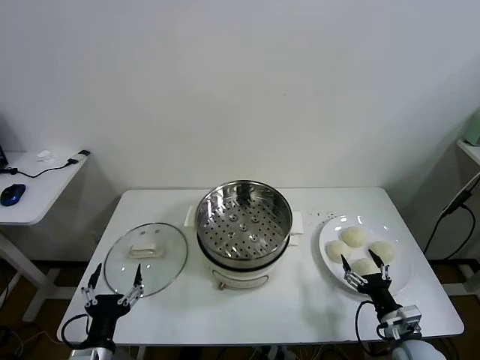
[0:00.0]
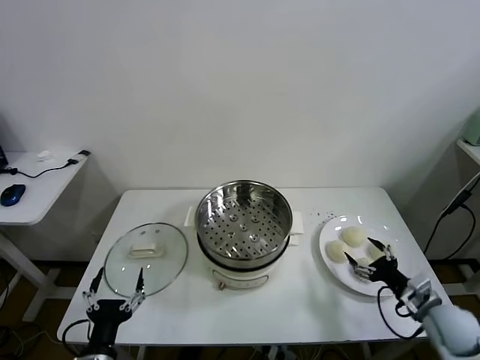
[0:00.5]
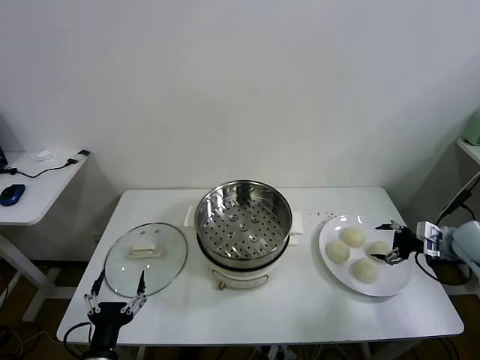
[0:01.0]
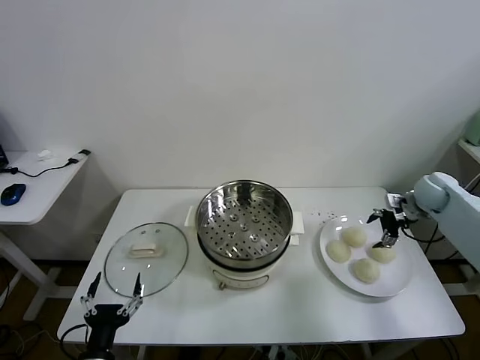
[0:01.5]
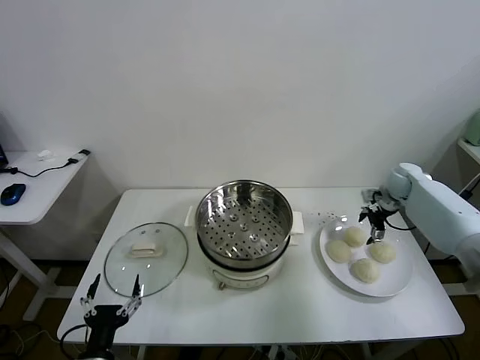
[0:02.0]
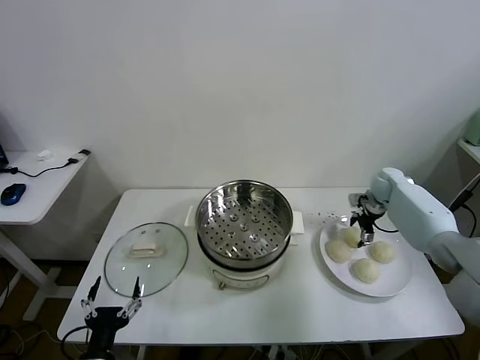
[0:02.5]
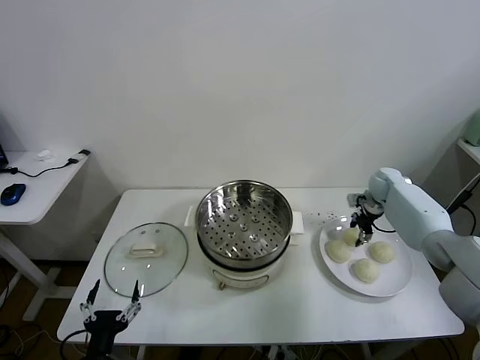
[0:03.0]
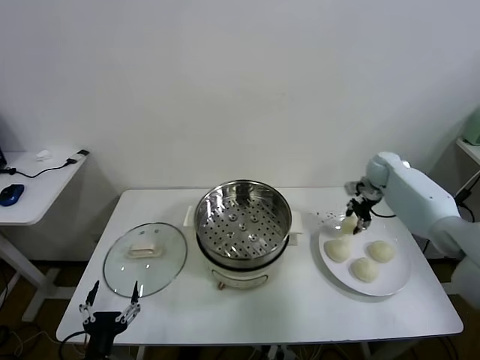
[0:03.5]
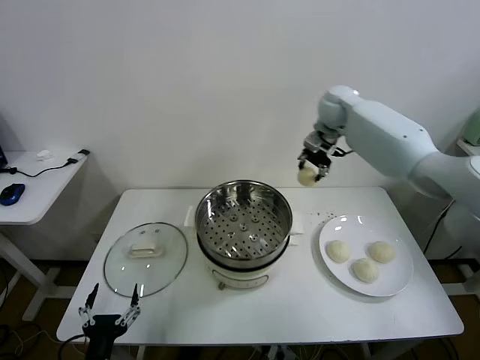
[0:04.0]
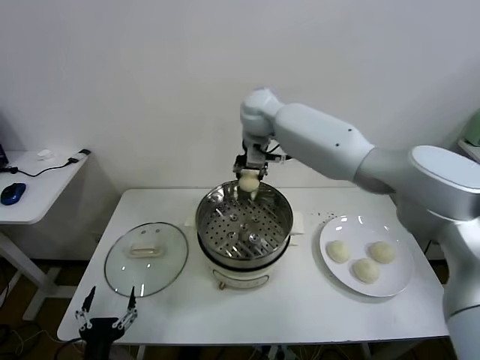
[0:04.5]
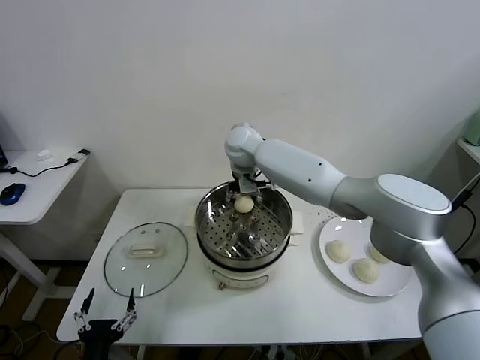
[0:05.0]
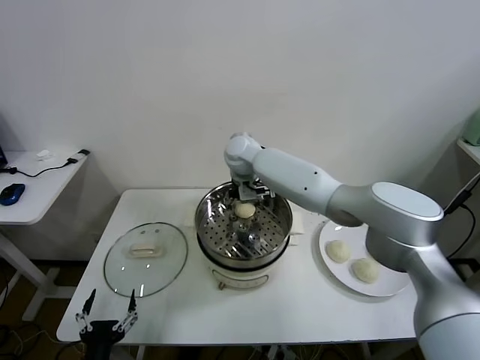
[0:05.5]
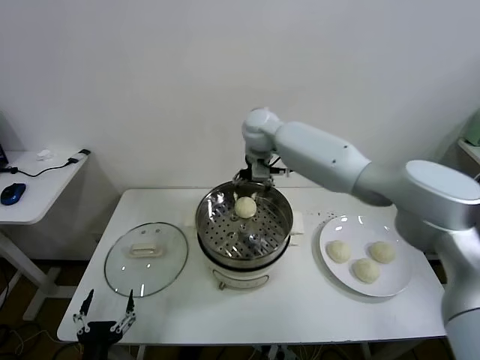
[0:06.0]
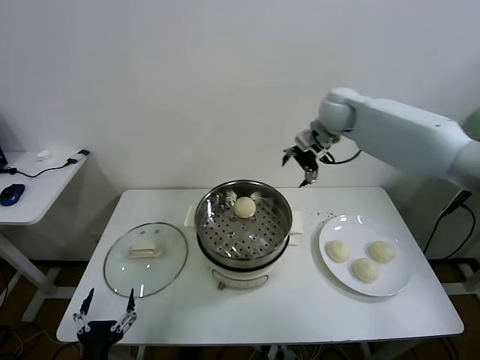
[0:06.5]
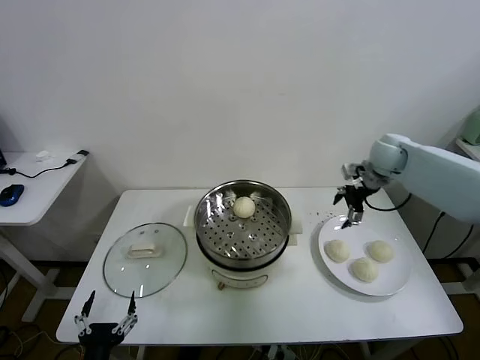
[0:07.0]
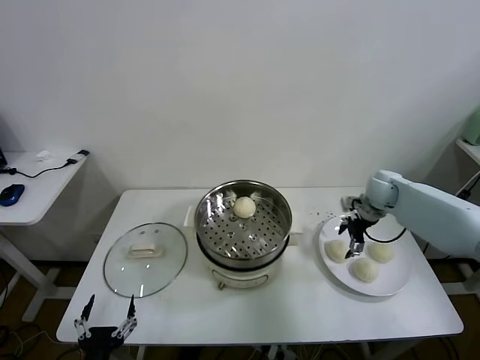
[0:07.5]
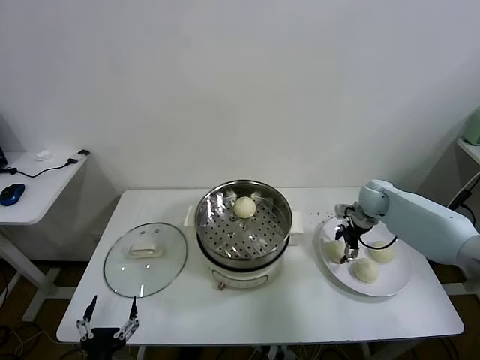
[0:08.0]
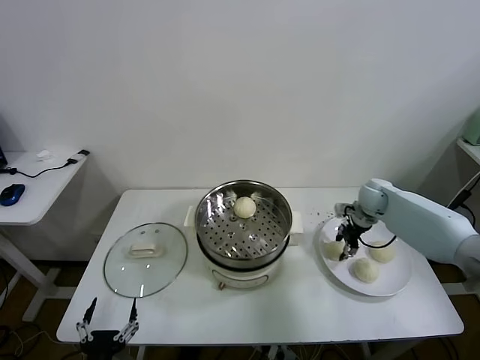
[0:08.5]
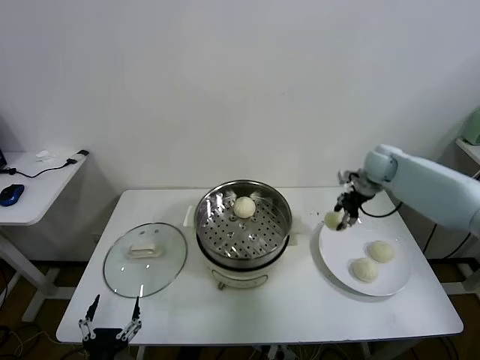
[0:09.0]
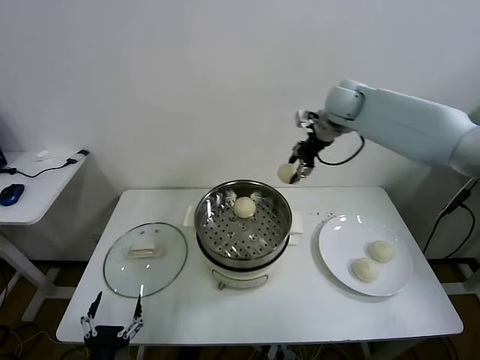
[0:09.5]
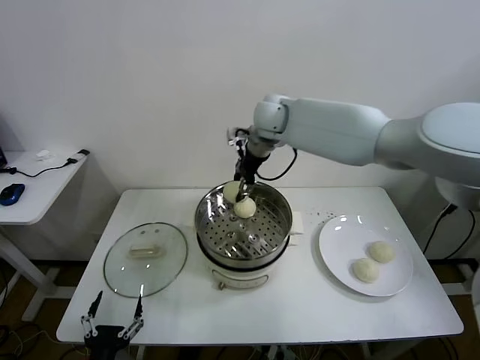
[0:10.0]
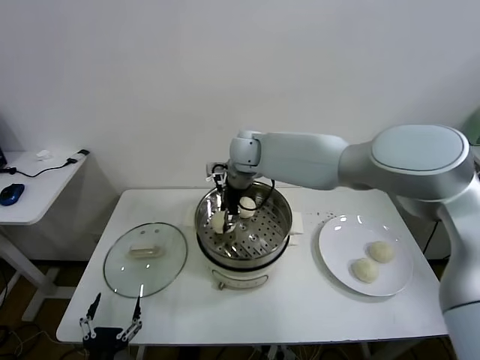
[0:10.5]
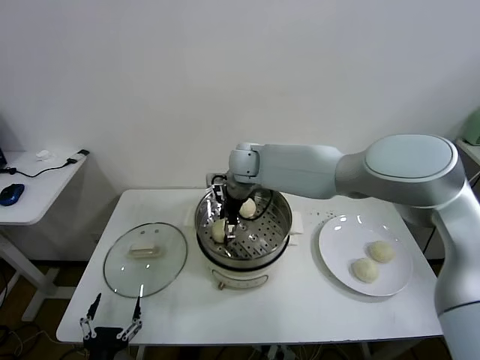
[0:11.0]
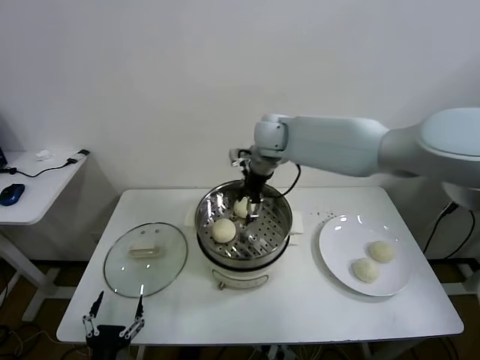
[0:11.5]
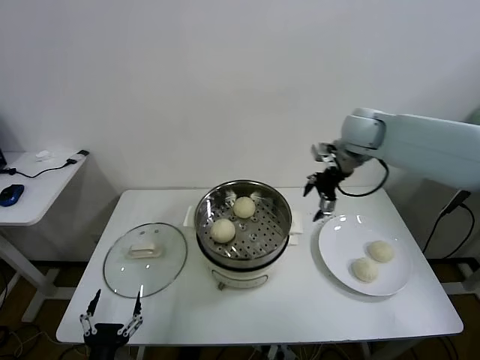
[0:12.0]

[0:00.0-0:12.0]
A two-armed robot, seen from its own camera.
Task of the whole recording: take steamed baozi put them in steamer.
Step, 0:00.0 to 0:03.0: Grasp the baozi in the plate with right gripper.
Step, 0:03.5 to 0:05.5: Place the baozi on the steamer with right gripper.
Step, 0:06.0 to 0:08.0: Grasp the baozi in the plate with right gripper.
Step, 0:08.5 to 0:11.0: Place the baozi on the steamer with right gripper.
0:02.0 to 0:04.0: The right gripper shifts roughly 35 cm to the left and upward, and closes its fingers.
0:04.0 to 0:06.0: The right gripper shifts approximately 10 cm to the left, and opens up.
0:06.0 to 0:08.0: The right gripper is displaced to the right and downward by about 35 cm.
0:08.0 to 0:10.0: The right gripper travels to the left and upward by approximately 40 cm, and closes.
0:10.0 to 0:12.0: The right gripper heads to the right, covering about 25 cm, and opens its fingers.

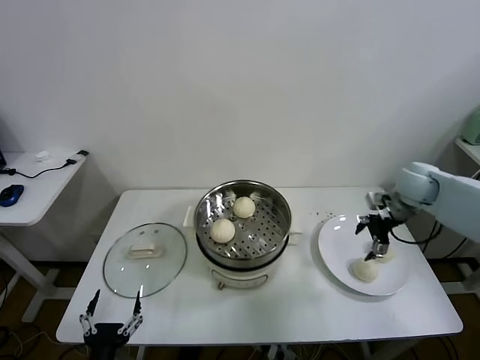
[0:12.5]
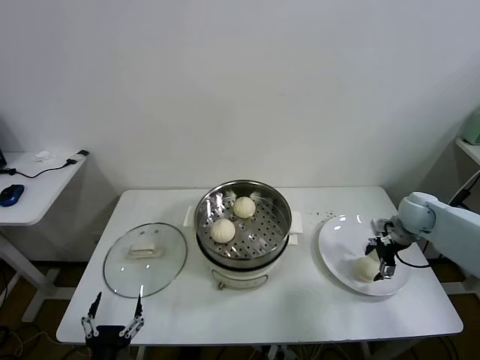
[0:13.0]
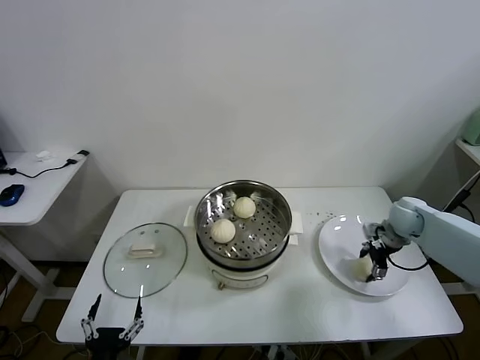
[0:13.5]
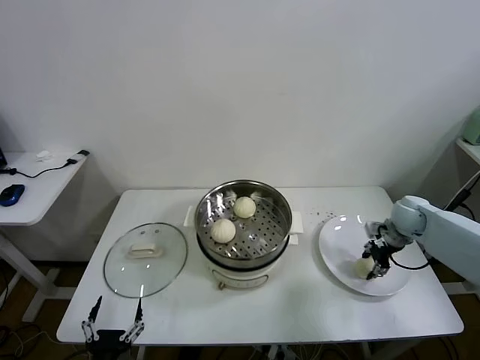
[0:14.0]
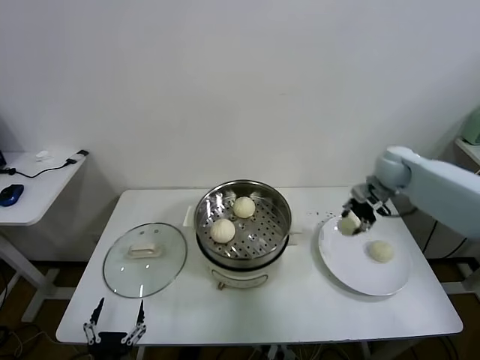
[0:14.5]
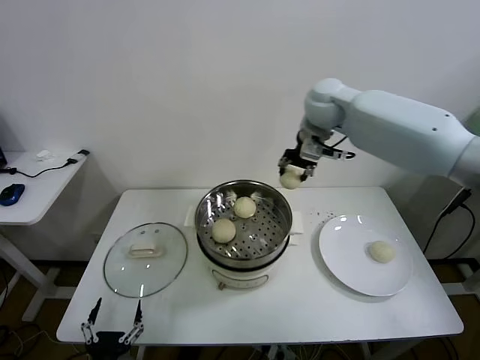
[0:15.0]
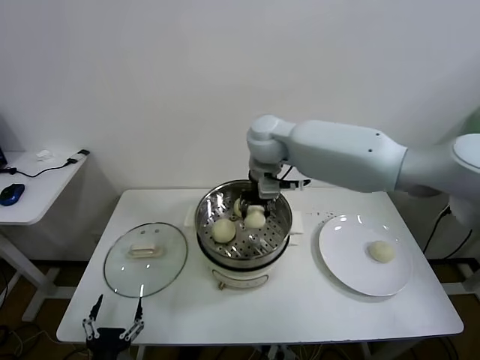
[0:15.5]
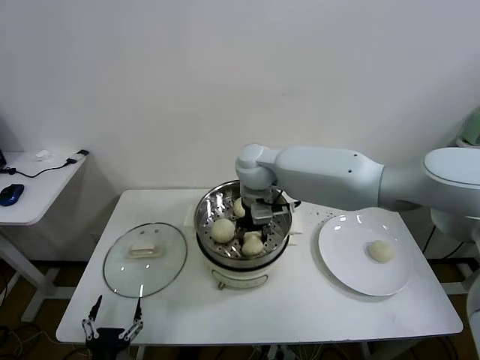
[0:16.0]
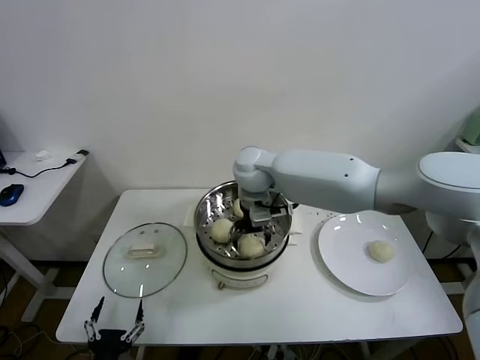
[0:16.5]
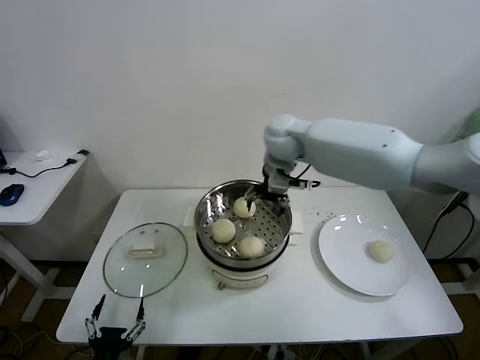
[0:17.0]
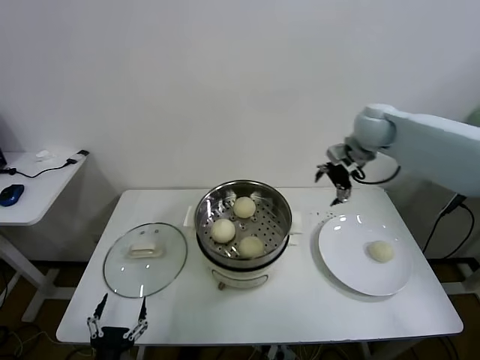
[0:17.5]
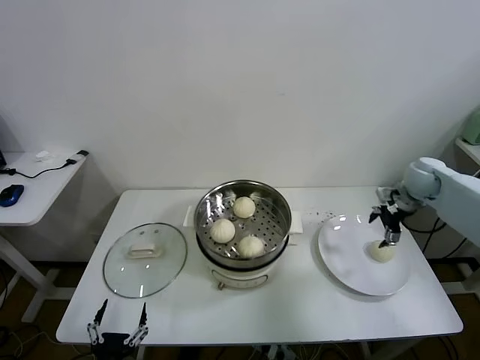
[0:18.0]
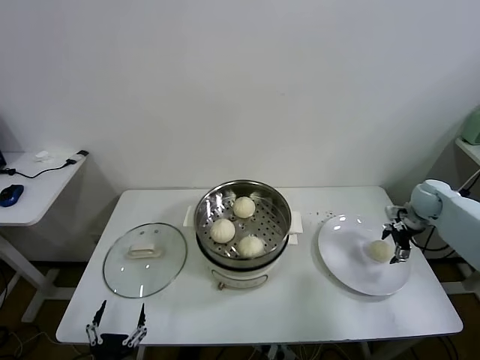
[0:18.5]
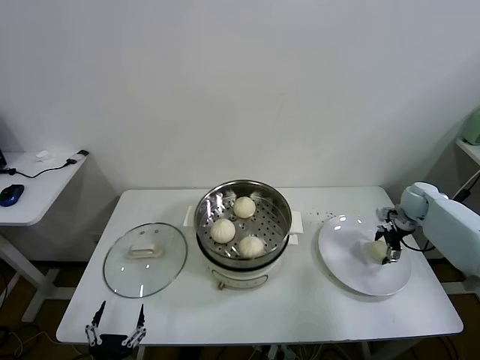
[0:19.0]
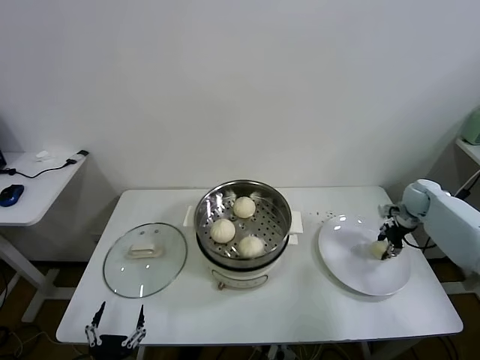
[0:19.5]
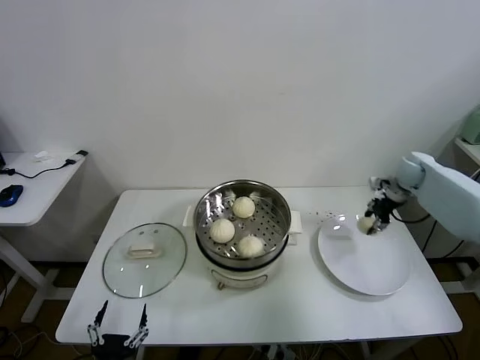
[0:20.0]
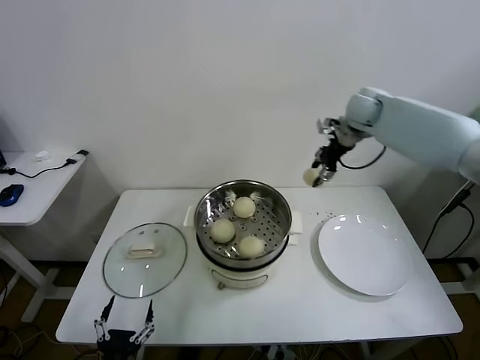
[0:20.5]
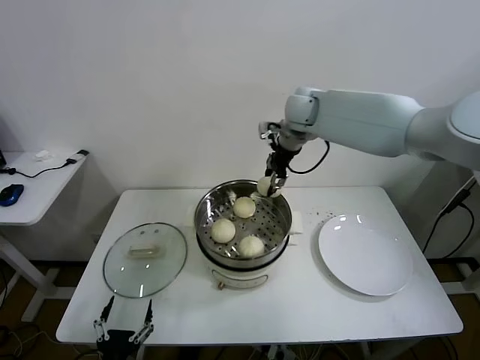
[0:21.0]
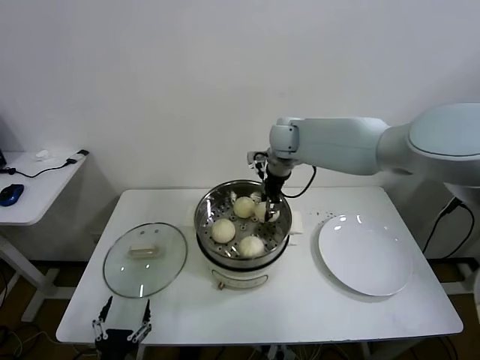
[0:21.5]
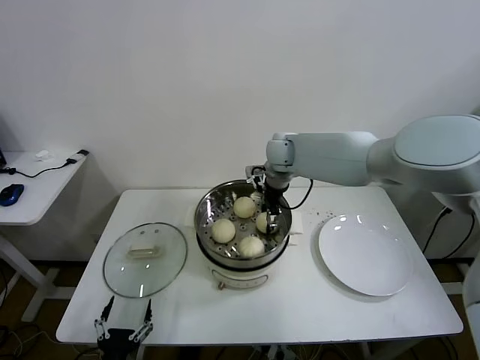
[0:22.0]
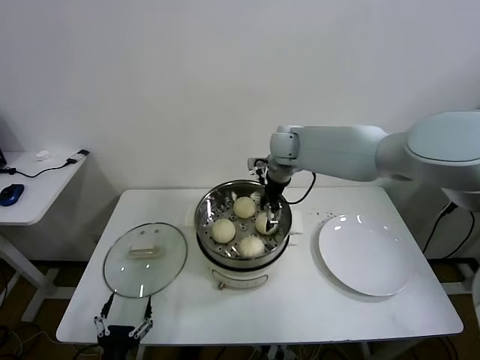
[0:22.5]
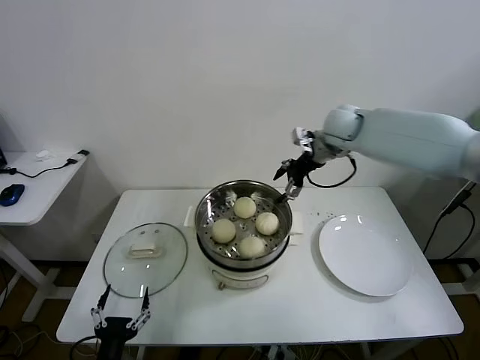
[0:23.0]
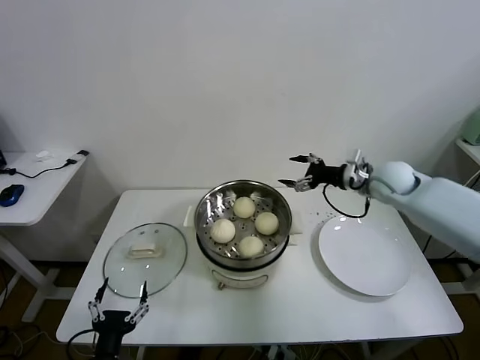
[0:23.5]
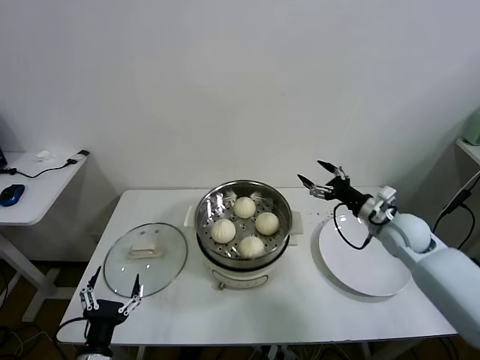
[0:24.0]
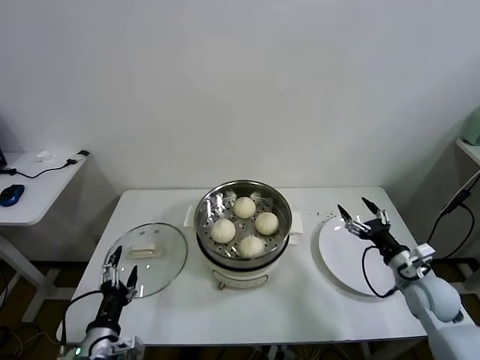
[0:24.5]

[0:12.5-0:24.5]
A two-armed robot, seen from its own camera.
Task of the whole recording: take steamed baozi put them in steamer.
Step, 0:14.0 to 0:16.5: Place the baozi on the steamer with right gripper.
Step, 0:17.0 to 0:19.0: Grasp the baozi in the plate with right gripper.
Step, 0:19.5 to 0:22.5: Place the baozi on the steamer with right gripper.
0:12.5 to 0:14.5: The right gripper travels to the left, forward and upward by roughly 10 cm, and closes up.
0:14.5 to 0:16.5: The right gripper goes about 35 cm to the left, and opens.
0:16.5 to 0:18.5: The right gripper heads to the right, covering about 50 cm.
0:18.5 to 0:20.5: The right gripper is displaced upward, to the left and forward by about 30 cm, and closes its fingers.
0:20.5 to 0:22.5: The right gripper is displaced to the left and downward by roughly 20 cm, and opens.
0:22.5 to 0:24.5: The right gripper goes approximately 50 cm to the right, backward and downward. The left gripper goes approximately 5 cm forward.

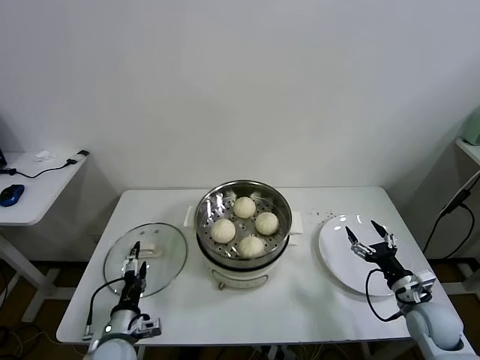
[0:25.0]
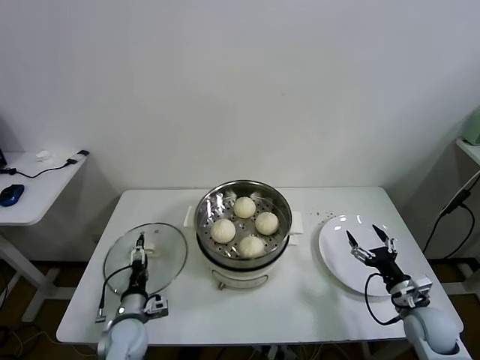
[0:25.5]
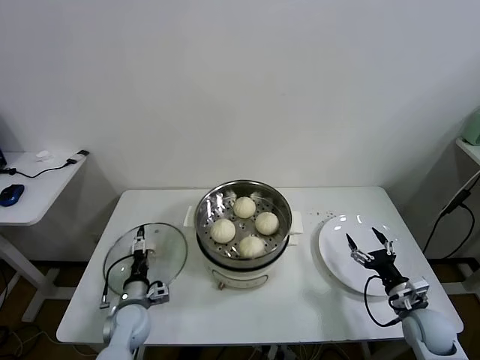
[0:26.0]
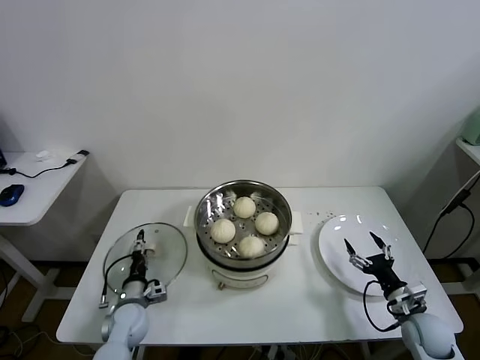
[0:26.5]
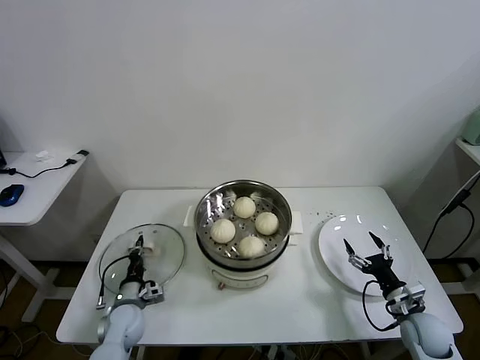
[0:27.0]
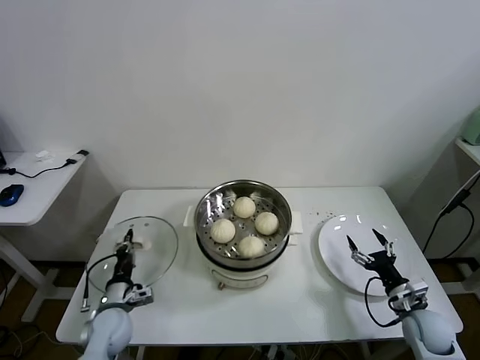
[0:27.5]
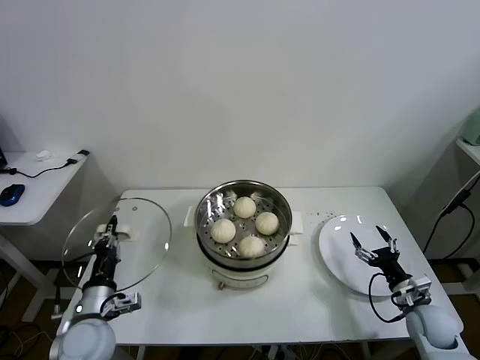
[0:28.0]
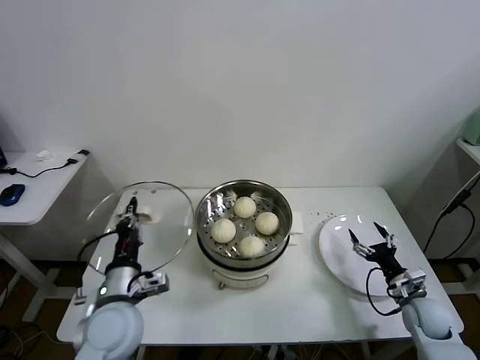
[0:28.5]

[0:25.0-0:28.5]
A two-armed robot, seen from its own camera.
Task of the whole recording: take steamed baozi put them in steamer.
Step, 0:25.0 to 0:27.0: Grasp the pot lid with left gripper.
0:25.0 to 0:27.0: The left gripper goes some 10 cm forward and downward, and closes.
0:27.0 to 0:28.5: The left gripper moves upward, approximately 20 cm.
